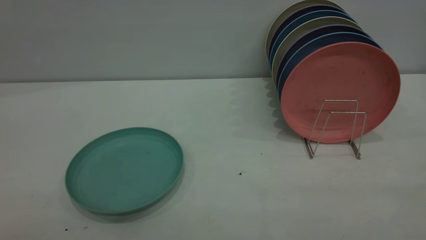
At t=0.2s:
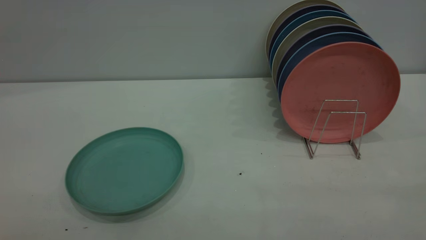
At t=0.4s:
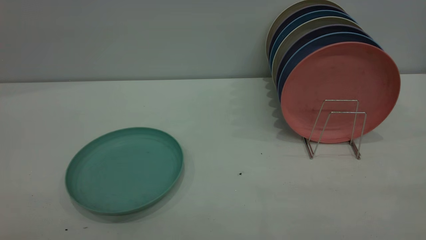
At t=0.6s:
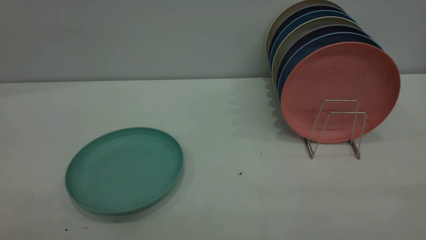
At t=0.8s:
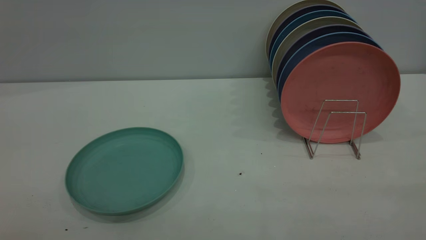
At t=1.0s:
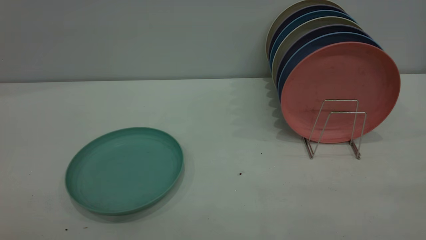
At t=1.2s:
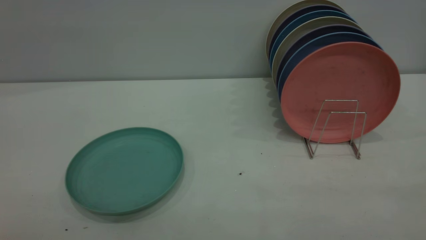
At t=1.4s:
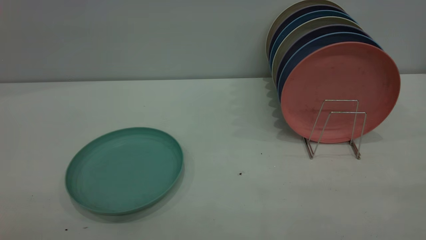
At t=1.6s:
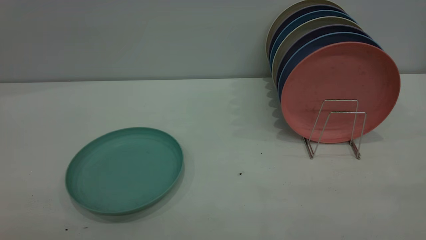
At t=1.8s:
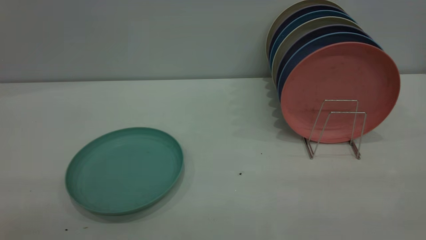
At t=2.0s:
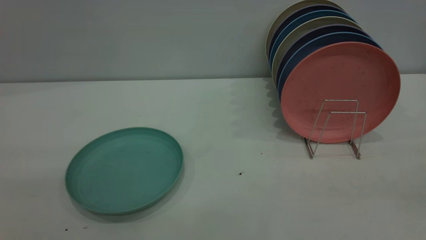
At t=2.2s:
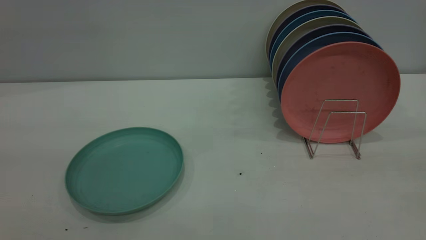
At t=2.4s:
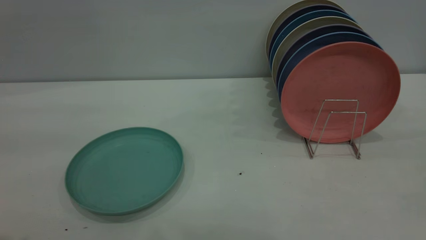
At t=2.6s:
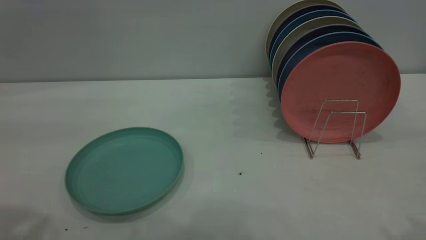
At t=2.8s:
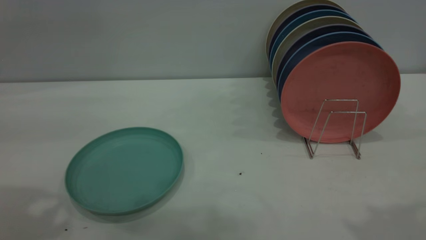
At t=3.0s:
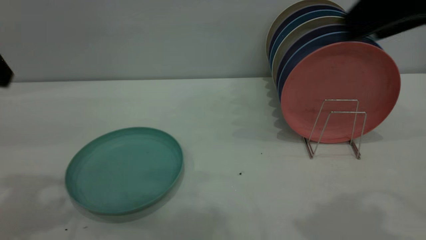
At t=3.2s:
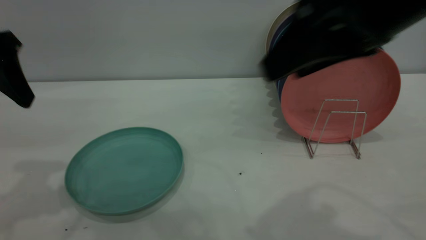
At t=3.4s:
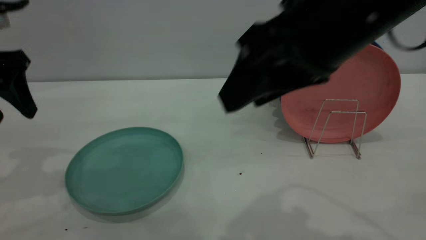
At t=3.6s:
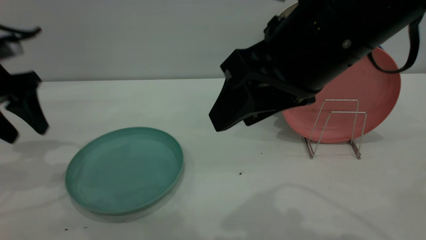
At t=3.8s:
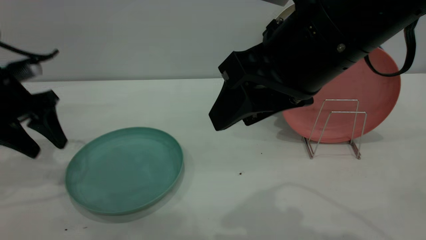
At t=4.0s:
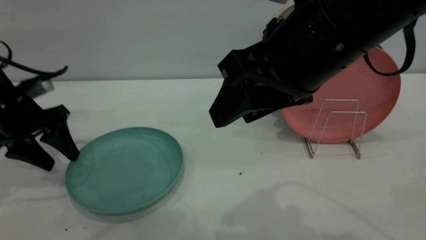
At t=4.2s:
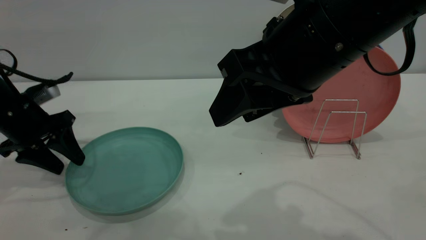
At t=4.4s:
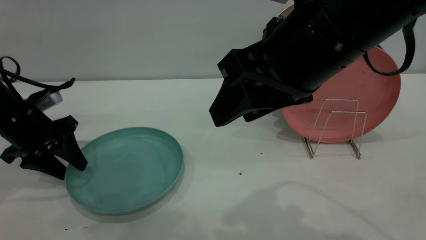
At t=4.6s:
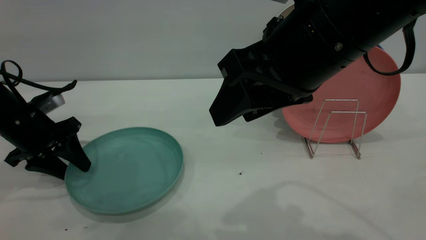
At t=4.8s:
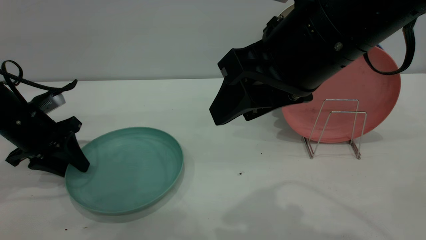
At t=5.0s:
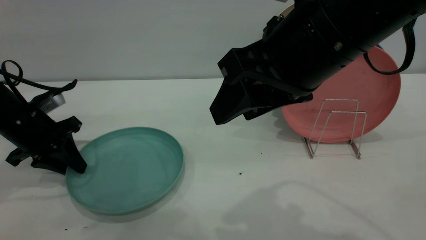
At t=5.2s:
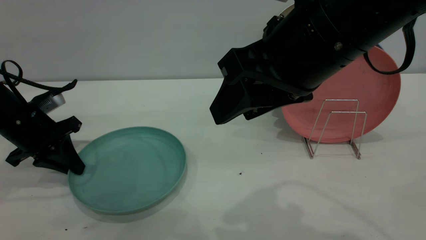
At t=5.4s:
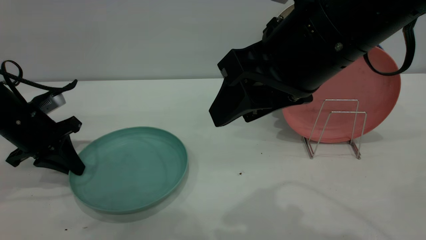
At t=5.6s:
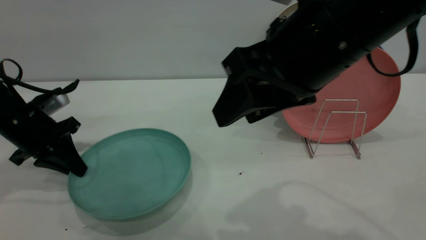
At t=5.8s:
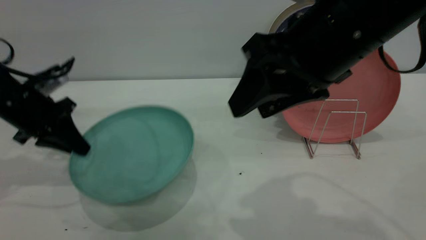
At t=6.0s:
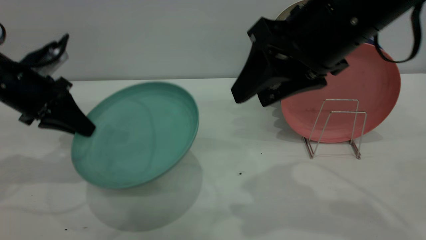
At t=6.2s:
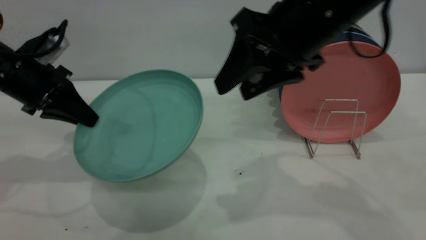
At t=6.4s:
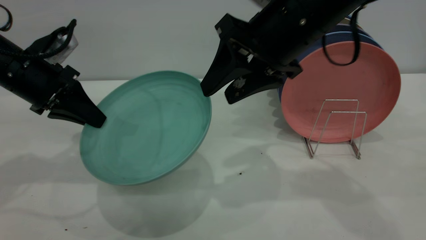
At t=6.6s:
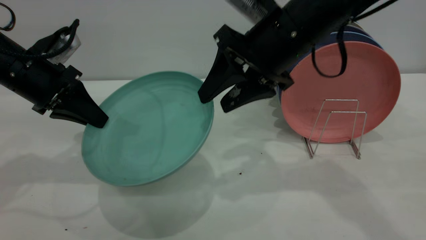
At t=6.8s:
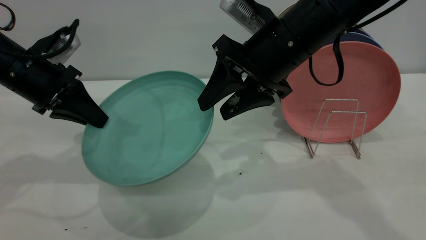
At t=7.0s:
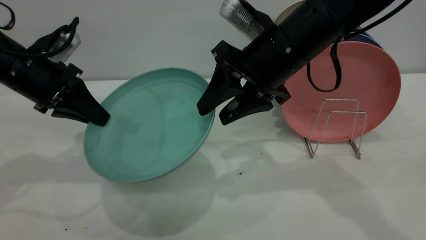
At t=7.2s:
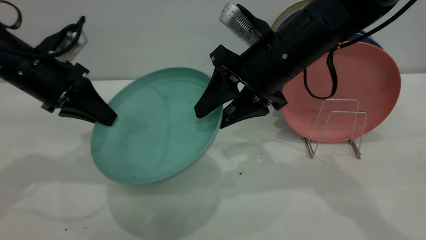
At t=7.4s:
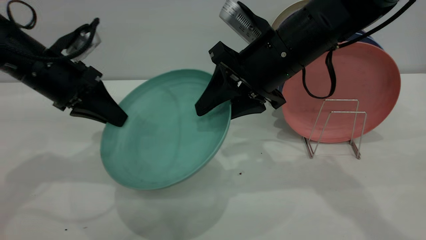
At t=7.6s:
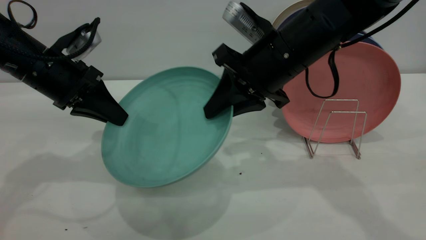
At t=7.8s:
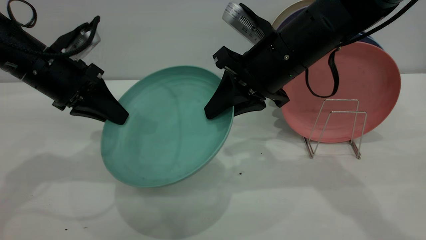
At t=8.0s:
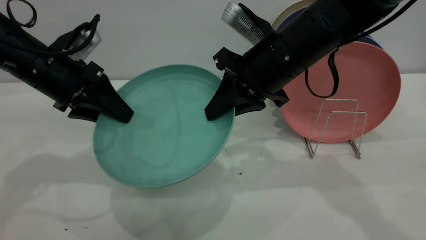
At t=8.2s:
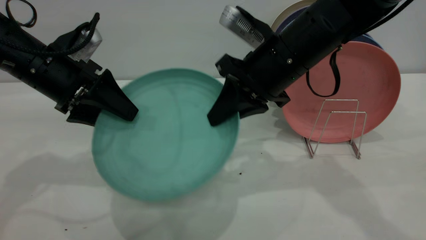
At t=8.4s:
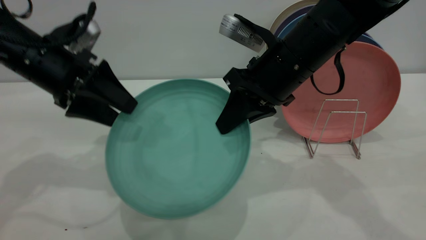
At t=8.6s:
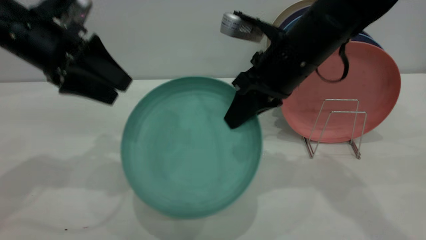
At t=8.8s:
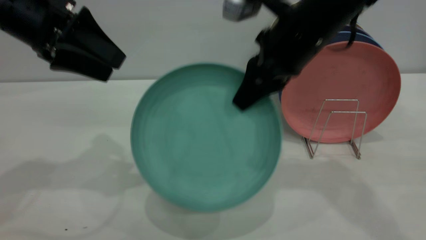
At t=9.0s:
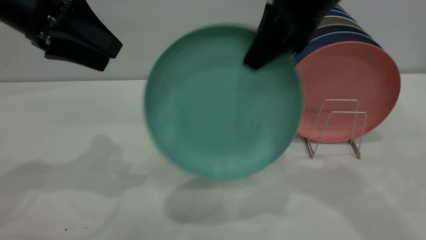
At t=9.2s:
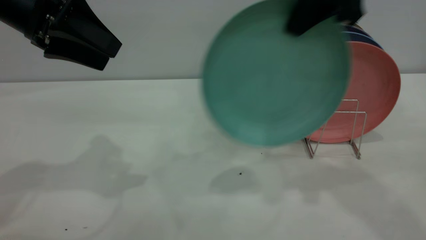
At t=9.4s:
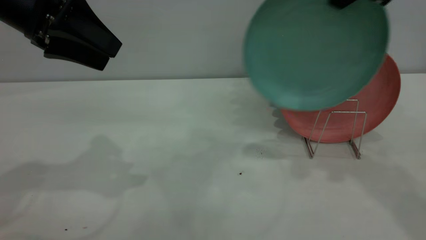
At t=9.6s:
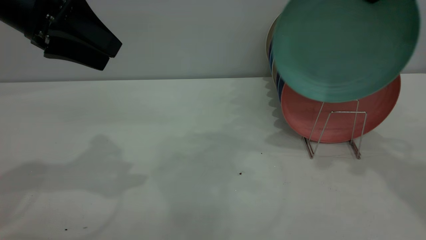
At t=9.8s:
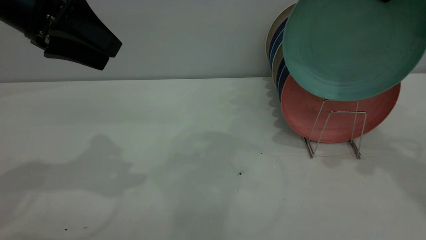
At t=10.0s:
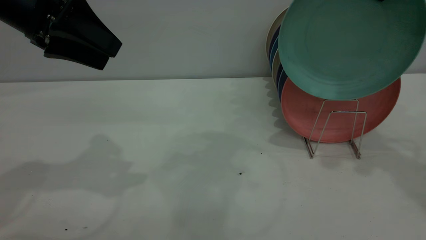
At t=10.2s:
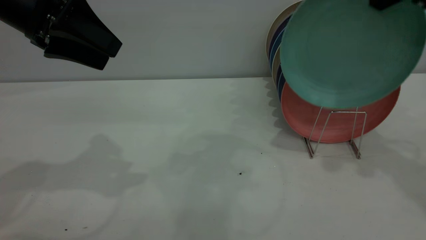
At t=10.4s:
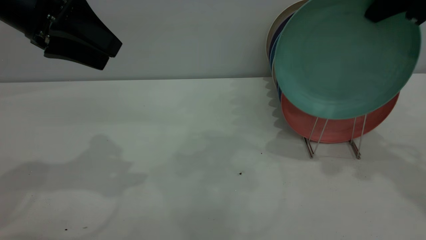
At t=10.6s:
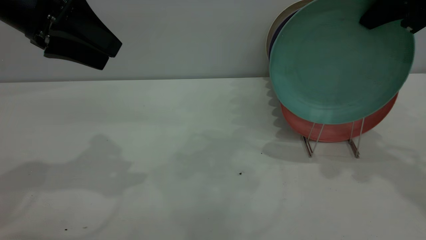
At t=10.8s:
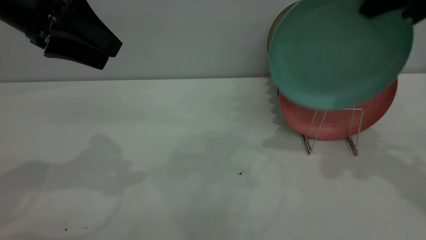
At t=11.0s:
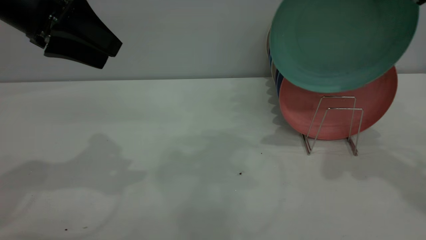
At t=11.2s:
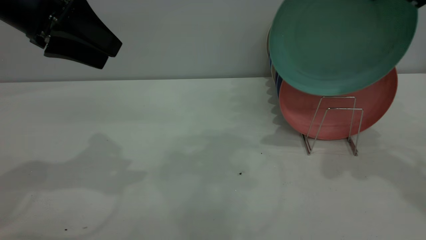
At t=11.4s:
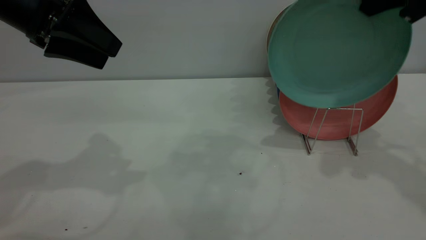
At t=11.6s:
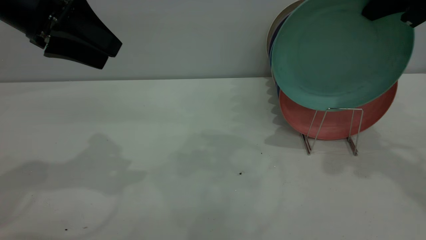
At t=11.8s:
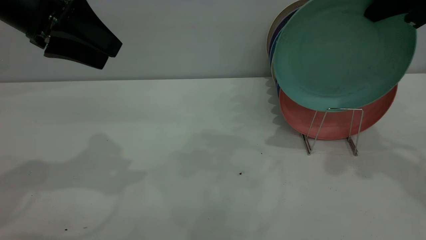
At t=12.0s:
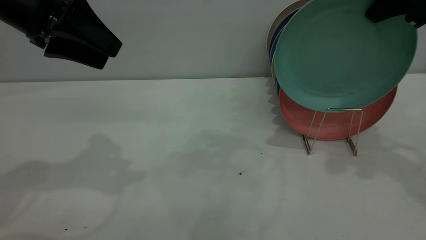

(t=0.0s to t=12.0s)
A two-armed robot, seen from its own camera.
Task of the whole recording: the left gripper grasp the green plate, the left gripper pass the green plate to the right gripper, and the right gripper place the green plate on the plate rack.
Step, t=0.0s - t=5.8s: Pick up the plate with the left gripper.
Step, t=6.0s - t=8.6s: Pass the plate from the left gripper to the right gripper.
t=0.0s - t=1.6s: The two grippers keep their place.
t=1.6s - t=3.0s: The right gripper travels forward and to the left by some 25 cm.
t=3.0s - t=4.4s: The left gripper heads downward and forward, covering approximately 25 cm, while the right gripper goes some 10 cm to the left and downward.
t=4.4s - t=6.0s: The left gripper is displaced upward by approximately 5 cm, and closes, while the right gripper changes place by roughly 5 cm.
t=6.0s - t=7.6s: The right gripper shifts approximately 10 cm forward and downward, and closes up, while the left gripper goes approximately 5 cm to the right.
t=7.6s - t=9.0s: Both grippers travel together upward, about 10 cm. The left gripper opens its fingers.
t=9.0s - t=10.4s: The right gripper heads to the right, covering about 15 cm.
t=10.4s - t=12.0s: There are only small adjustments of the grippers.

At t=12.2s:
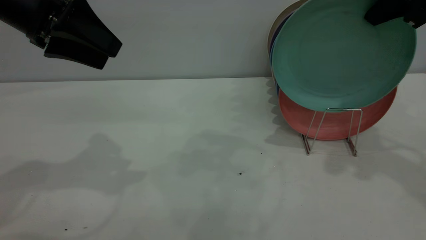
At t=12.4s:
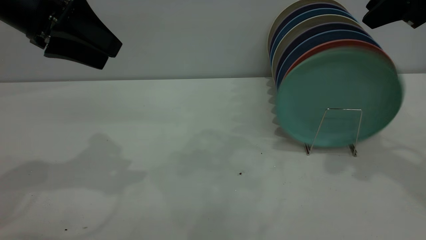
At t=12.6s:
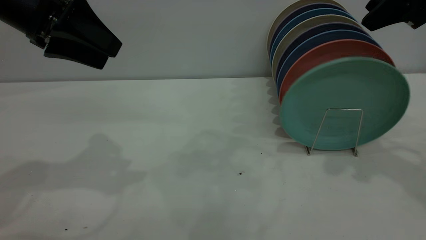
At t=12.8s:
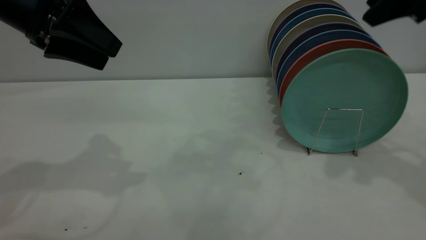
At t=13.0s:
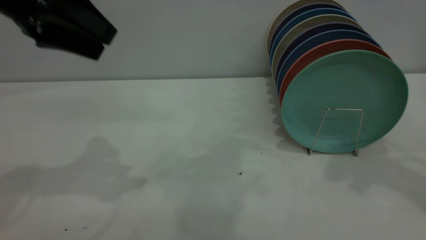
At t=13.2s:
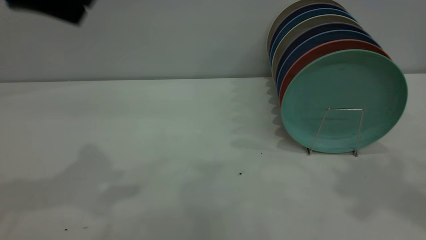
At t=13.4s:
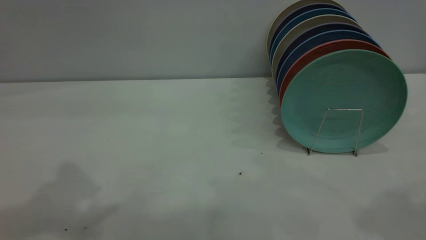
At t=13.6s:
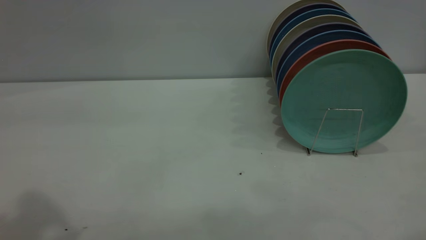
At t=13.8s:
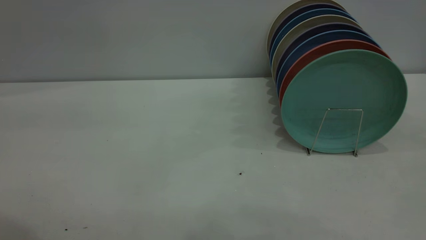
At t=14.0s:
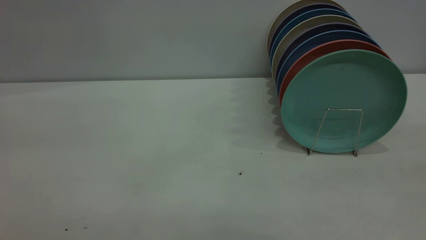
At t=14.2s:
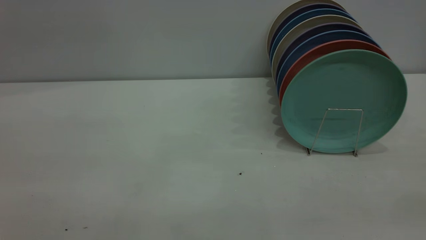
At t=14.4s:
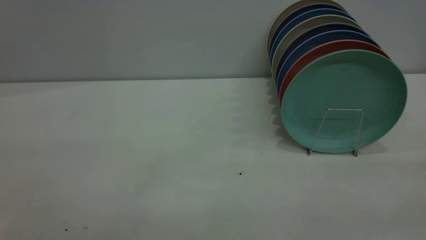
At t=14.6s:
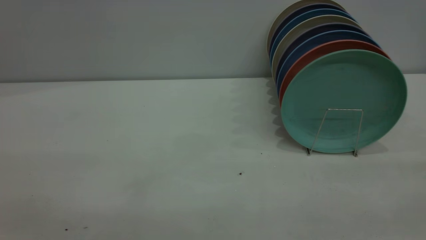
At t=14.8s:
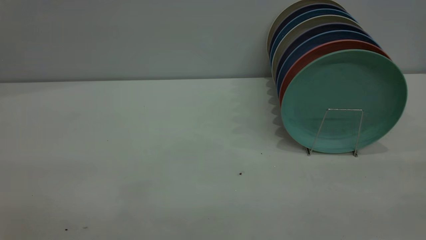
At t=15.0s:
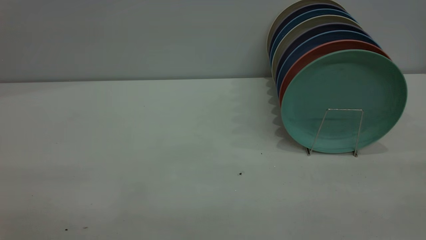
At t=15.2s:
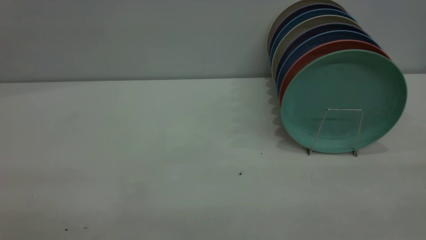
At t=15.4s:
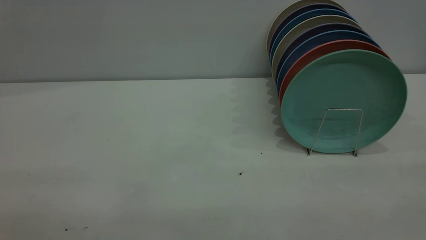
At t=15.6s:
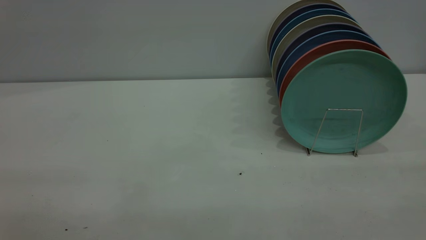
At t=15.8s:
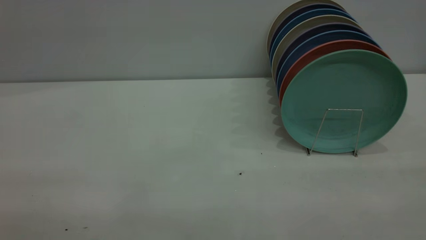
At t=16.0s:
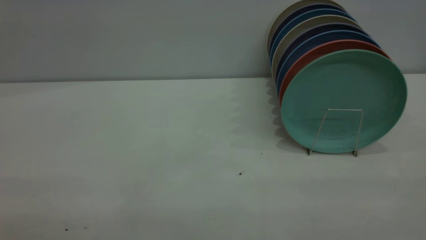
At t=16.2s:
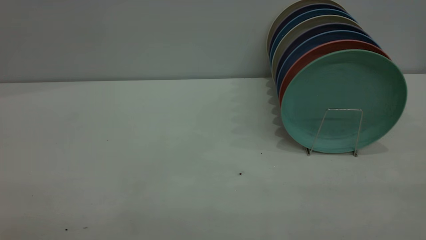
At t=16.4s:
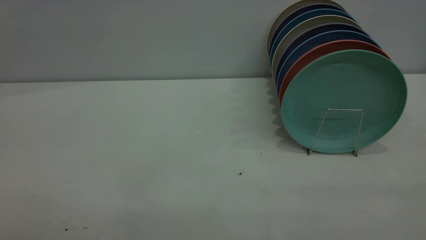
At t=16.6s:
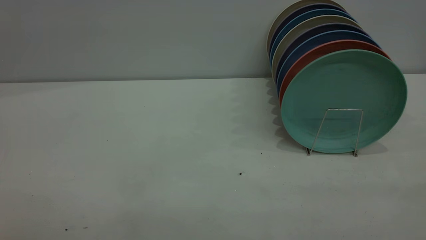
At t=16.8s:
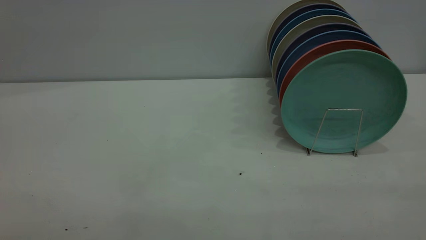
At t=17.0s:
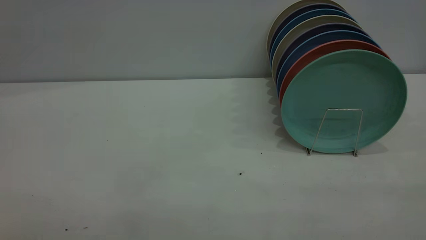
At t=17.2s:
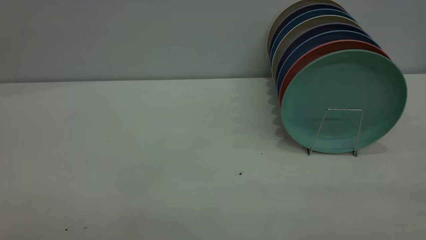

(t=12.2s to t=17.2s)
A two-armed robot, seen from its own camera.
Task of the whole recording: the left gripper grasp the green plate, the left gripper pass the green plate to the right gripper, and the right gripper place the green plate on the plate rack.
t=12.2s - t=13.8s: The right gripper goes about 30 cm backward and upward, and opens up. Meanwhile the left gripper heads upward and backward, covering approximately 25 cm.
